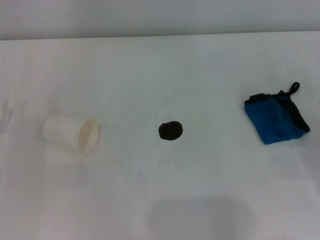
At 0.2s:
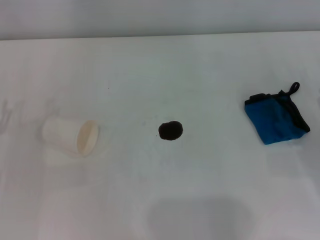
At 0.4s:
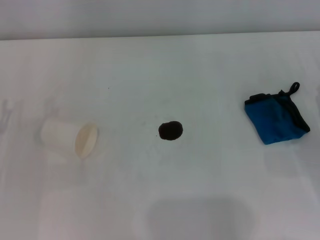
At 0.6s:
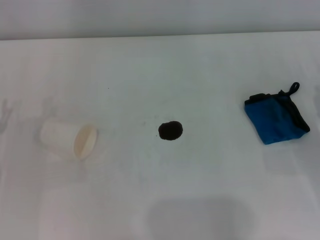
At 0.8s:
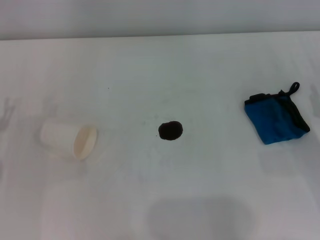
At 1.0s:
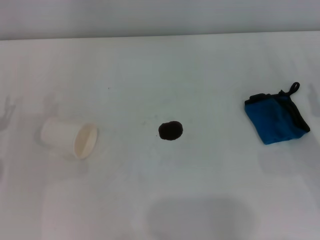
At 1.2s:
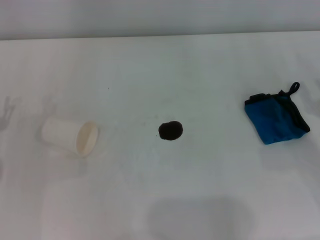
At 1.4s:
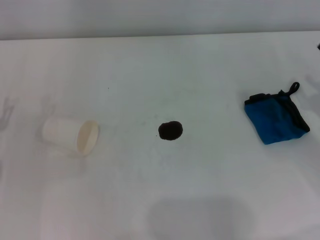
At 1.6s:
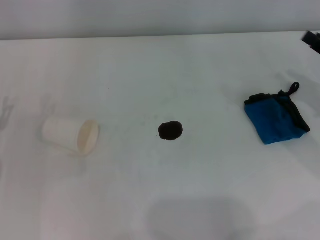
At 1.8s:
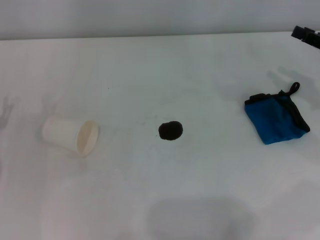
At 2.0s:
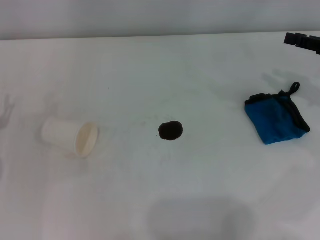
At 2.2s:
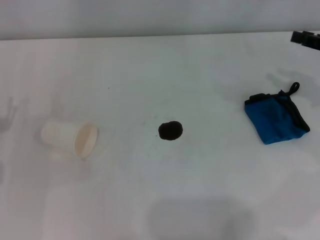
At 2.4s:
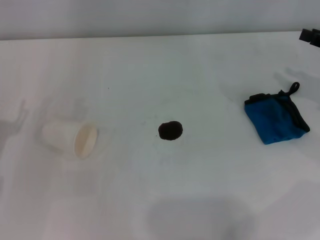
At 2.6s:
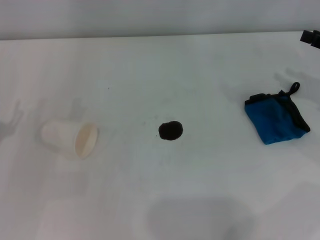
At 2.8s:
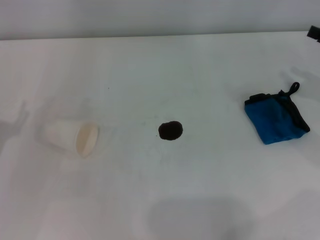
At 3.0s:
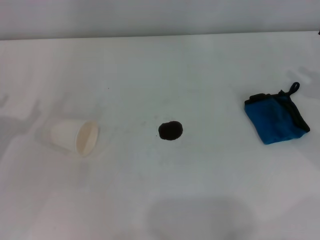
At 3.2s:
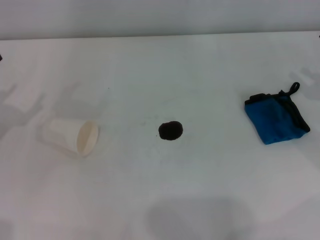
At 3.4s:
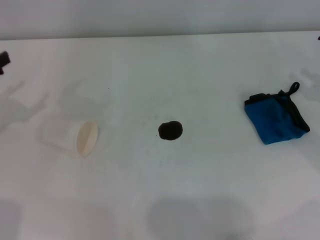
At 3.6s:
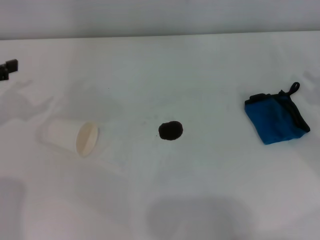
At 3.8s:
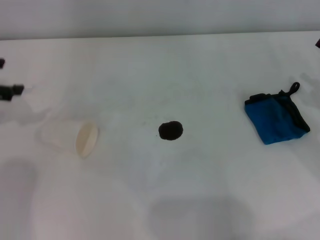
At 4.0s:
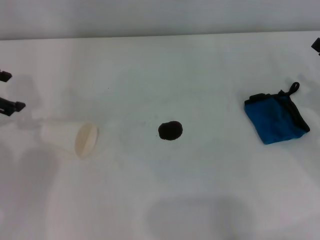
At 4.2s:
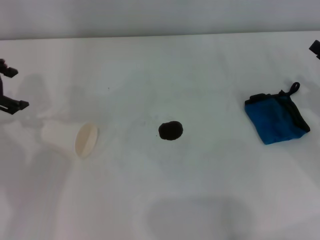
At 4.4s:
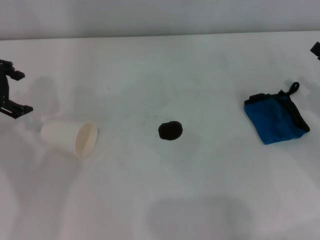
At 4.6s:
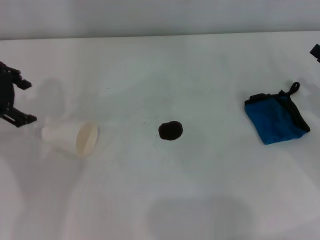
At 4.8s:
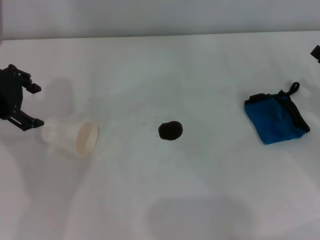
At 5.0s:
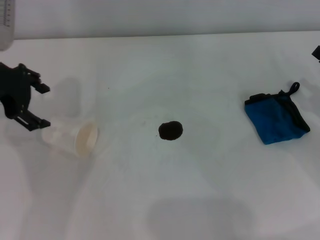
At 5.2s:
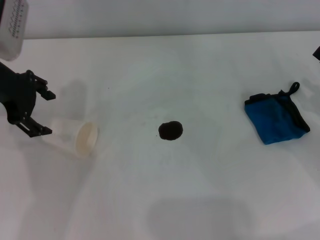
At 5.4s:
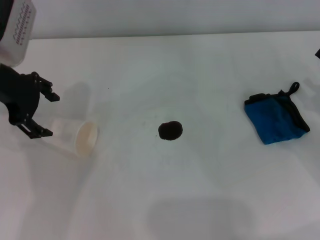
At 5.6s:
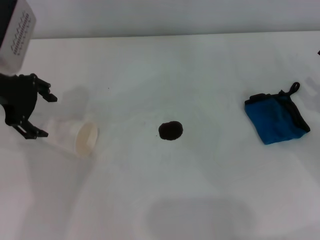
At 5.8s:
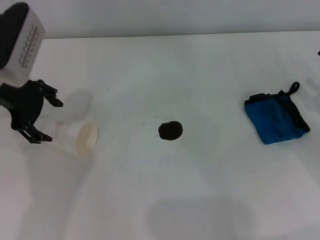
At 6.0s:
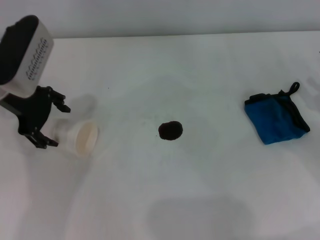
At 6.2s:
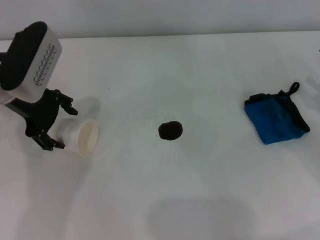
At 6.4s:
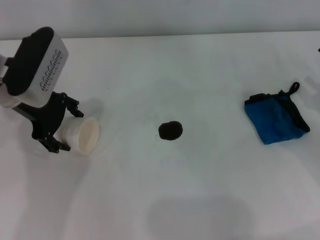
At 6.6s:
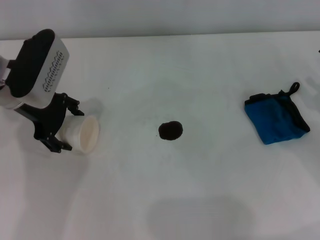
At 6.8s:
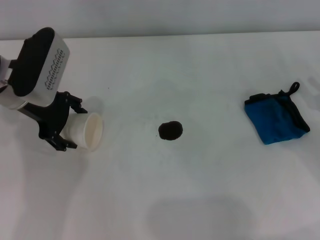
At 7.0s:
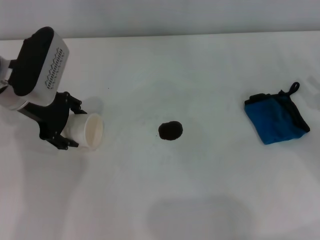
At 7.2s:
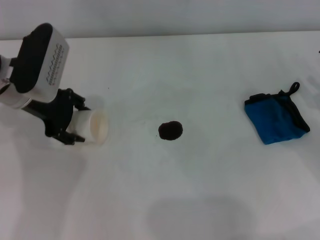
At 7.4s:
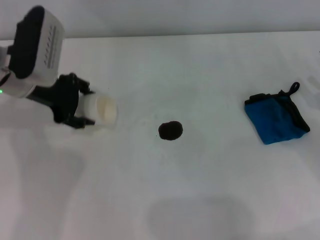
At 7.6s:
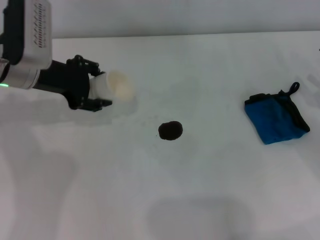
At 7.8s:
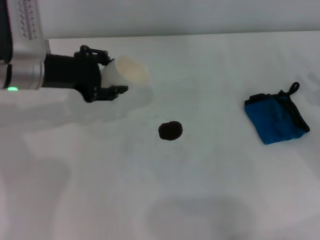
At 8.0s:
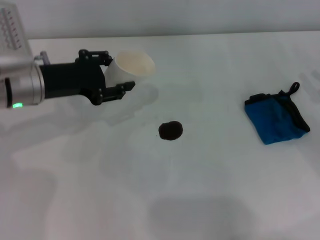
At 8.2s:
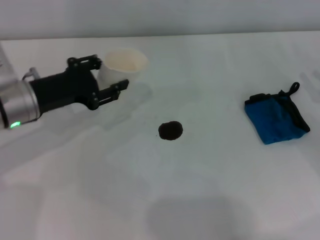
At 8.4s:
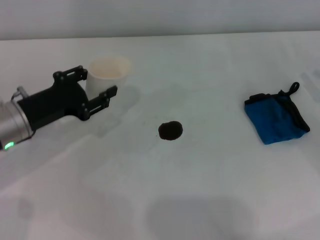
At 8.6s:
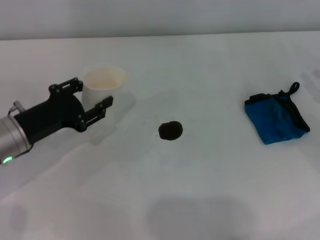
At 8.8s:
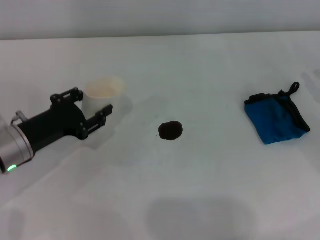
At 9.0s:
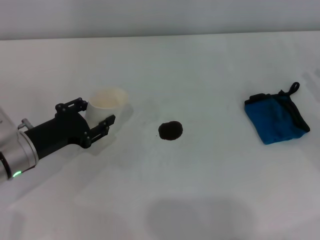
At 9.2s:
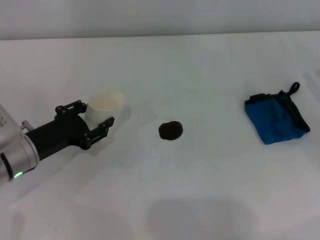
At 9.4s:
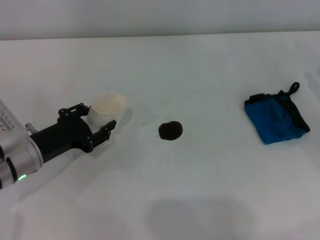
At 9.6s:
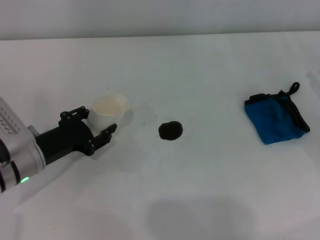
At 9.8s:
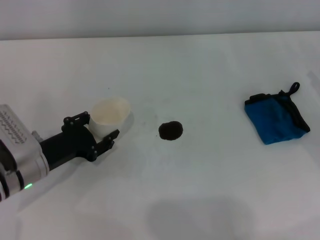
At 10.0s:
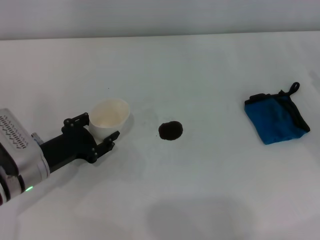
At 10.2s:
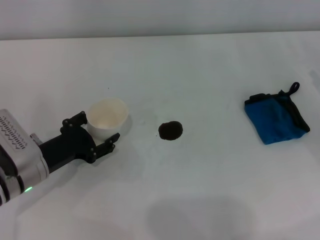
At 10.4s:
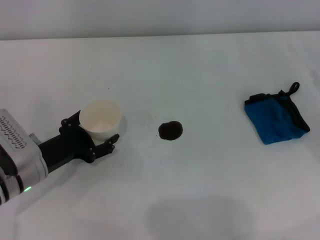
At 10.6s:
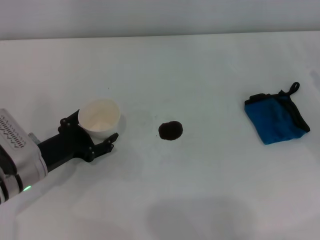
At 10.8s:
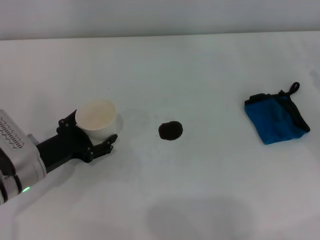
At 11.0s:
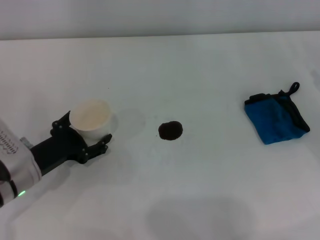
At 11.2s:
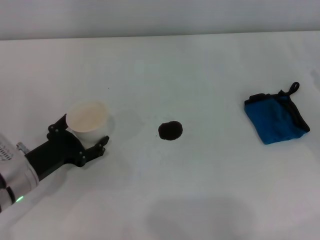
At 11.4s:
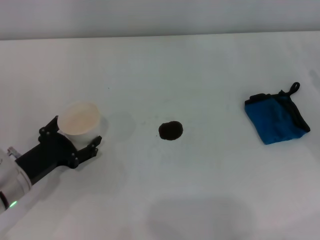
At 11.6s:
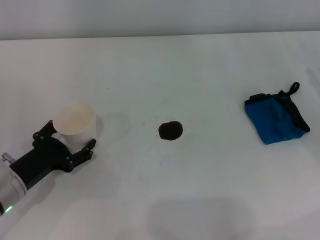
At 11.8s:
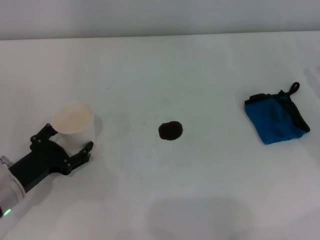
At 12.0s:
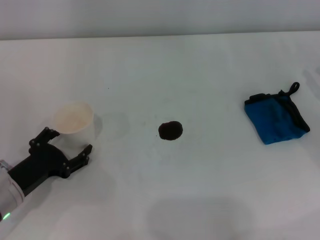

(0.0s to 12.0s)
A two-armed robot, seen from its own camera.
Step, 0.0s - 6.8s: Grasp the paper cup with the left gripper.
Step, 7.2s - 11.8s: Stand the paper cup upright with the left gripper.
3.0s - 4.4s: The left gripper goes approximately 20 cm forward and upward.
4.4s - 6.0s: The left gripper heads to the right, covering about 5 cm.
6.0s - 7.6s: The left gripper closes.
7.6s - 9.0s: The left gripper is displaced downward and backward by roughly 15 cm.
9.0s - 10.4s: The grippers move only a little.
10.4s - 12.0s: The left gripper ends up about 5 cm from where it was, and opens its fingers.

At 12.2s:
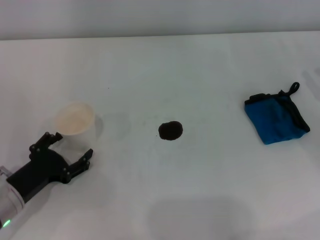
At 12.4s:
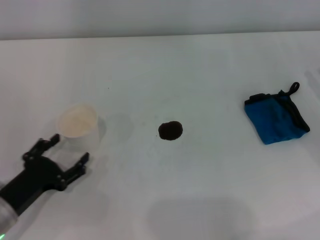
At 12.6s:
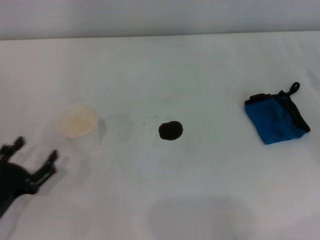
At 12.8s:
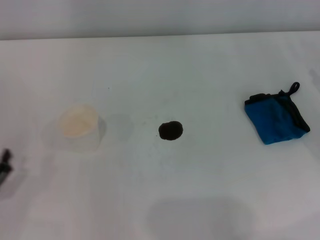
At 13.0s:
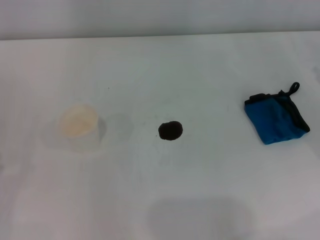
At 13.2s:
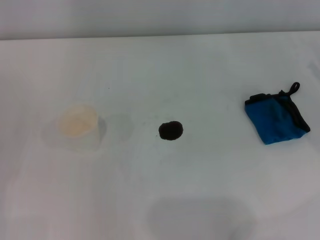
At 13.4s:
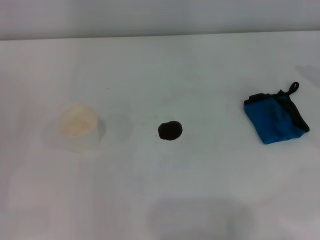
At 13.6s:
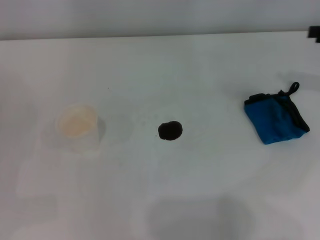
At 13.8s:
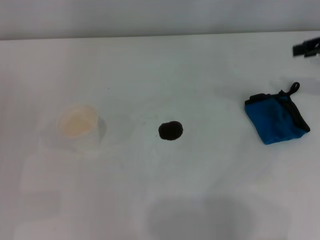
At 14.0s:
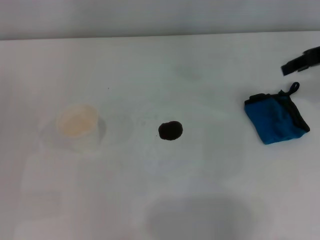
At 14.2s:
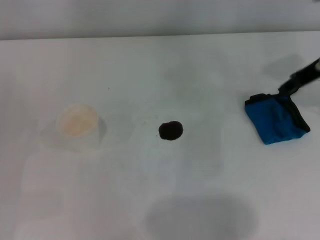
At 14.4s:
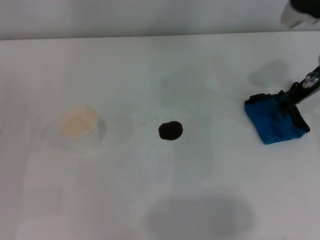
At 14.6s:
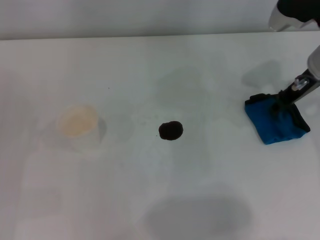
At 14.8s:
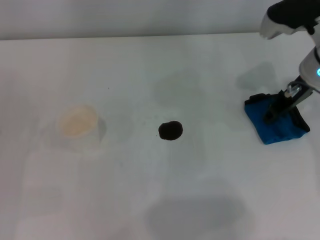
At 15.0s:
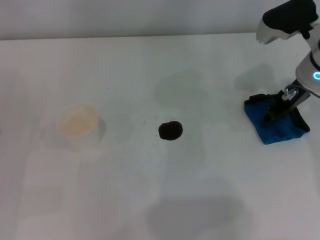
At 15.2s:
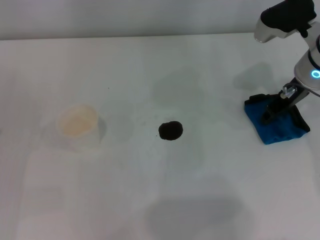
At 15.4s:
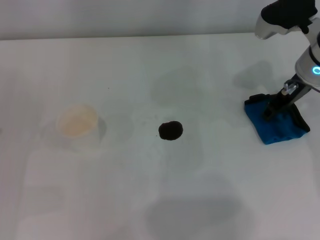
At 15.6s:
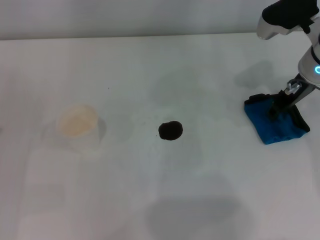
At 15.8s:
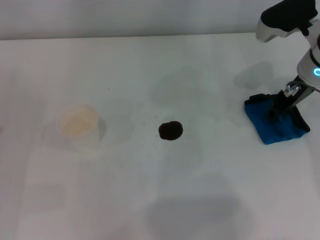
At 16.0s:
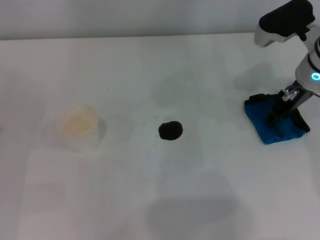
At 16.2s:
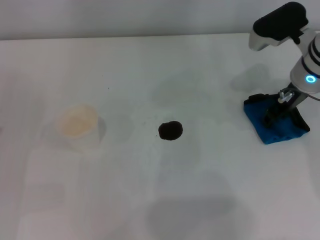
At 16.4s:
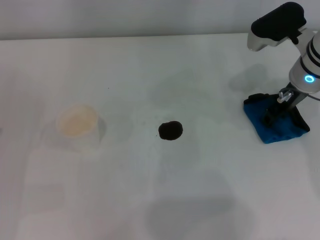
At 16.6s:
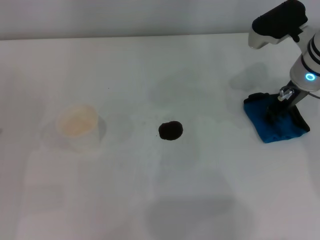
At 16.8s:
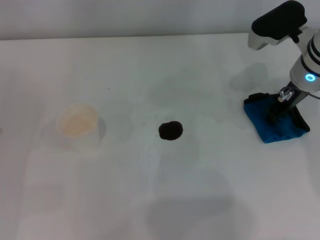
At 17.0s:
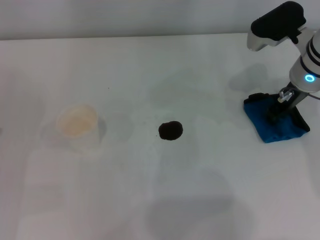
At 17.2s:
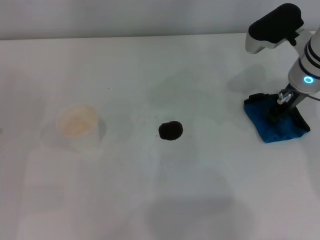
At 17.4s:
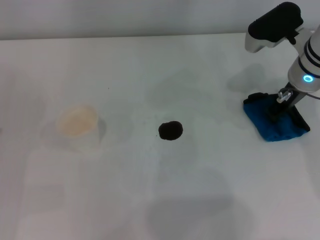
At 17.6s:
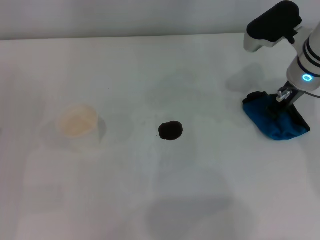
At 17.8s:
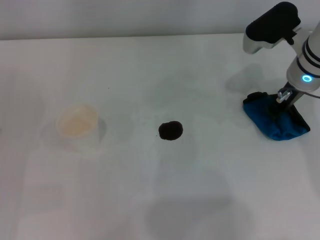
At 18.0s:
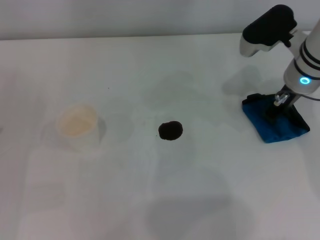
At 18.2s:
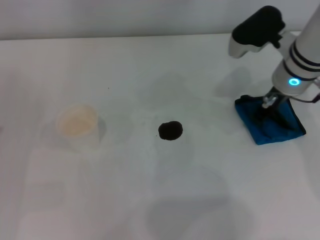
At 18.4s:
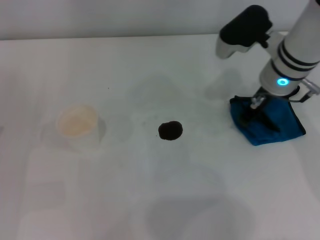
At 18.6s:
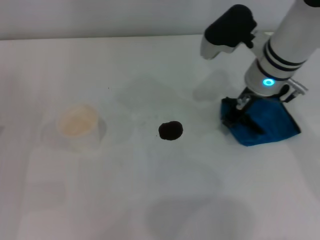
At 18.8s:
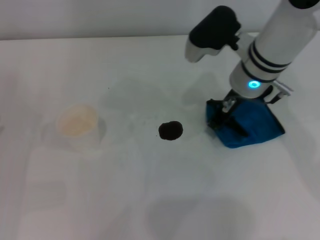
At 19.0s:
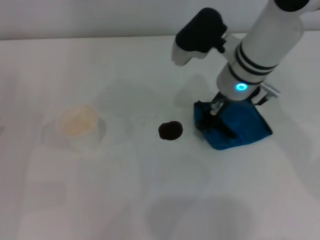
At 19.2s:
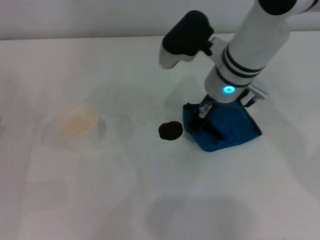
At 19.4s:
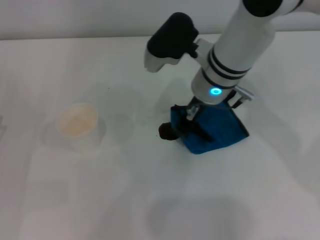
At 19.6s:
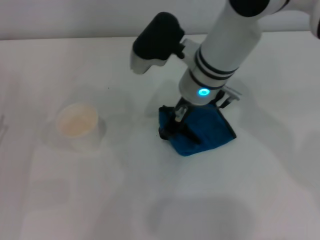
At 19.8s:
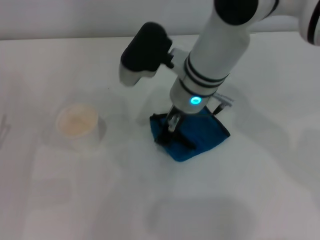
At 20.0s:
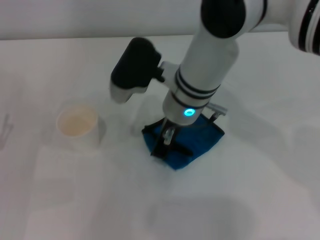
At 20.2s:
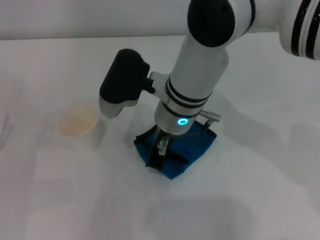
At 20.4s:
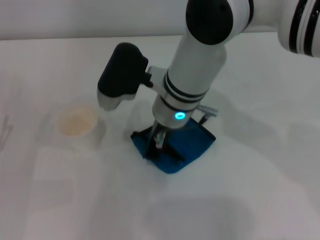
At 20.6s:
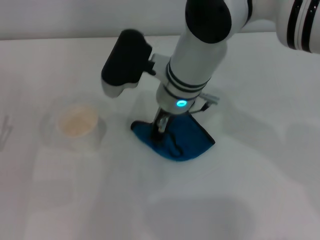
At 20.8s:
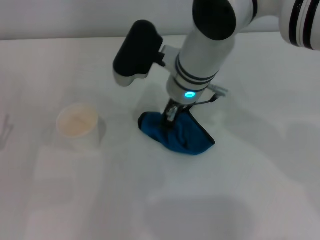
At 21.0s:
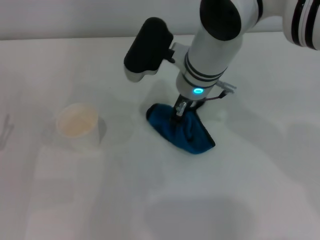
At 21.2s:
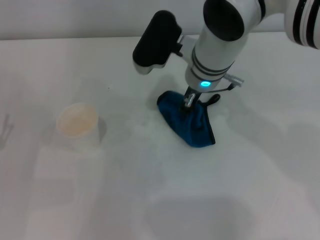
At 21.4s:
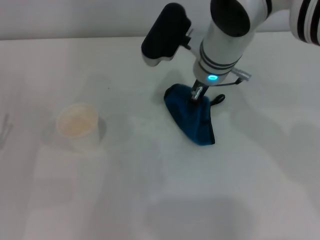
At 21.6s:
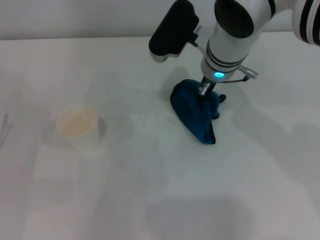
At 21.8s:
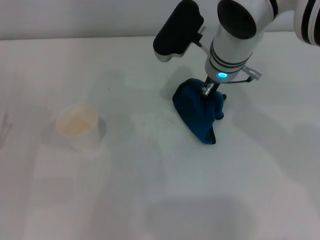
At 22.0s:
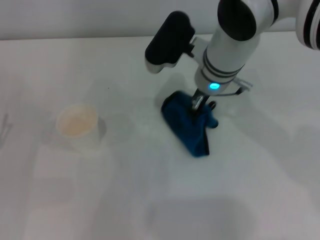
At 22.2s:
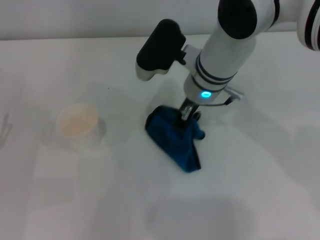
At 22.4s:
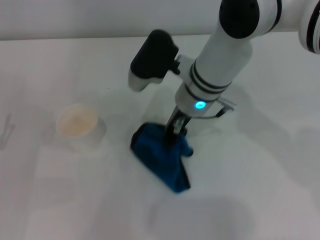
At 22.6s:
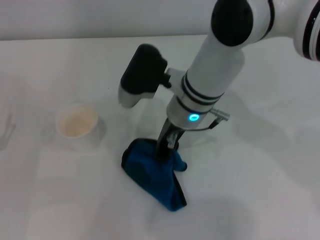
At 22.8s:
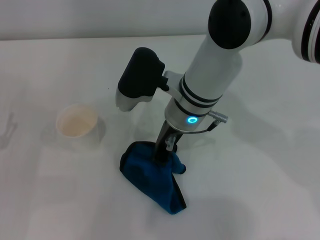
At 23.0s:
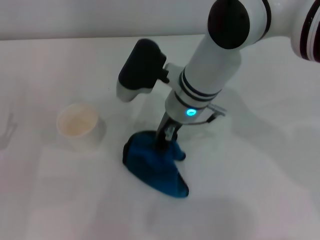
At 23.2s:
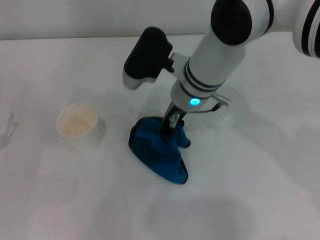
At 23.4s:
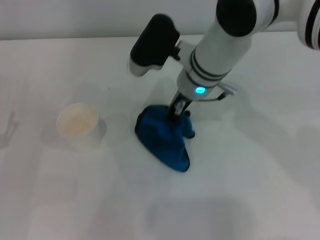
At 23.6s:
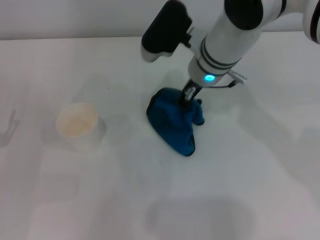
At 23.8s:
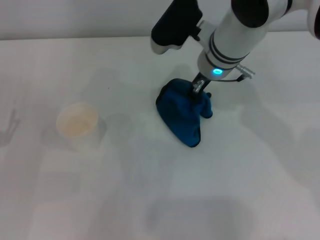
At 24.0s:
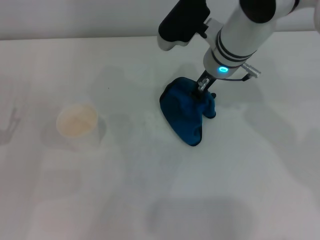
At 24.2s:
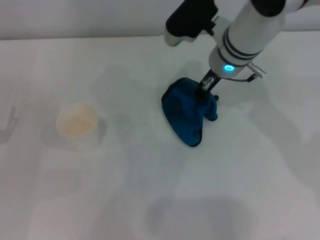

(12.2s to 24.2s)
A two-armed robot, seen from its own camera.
Step, 12.2s - 18.4s: Grasp the rag with the right gripper.
12.2s - 13.8s: The left gripper shifts roughly 10 cm to the left.
13.8s - 15.2s: The right gripper shifts approximately 15 cm to the left and downward.
15.2s - 16.6s: There are only small adjustments of the grippers.
16.6s - 18.2s: The right gripper closes its fingers.
18.2s - 19.8s: The right gripper shifts roughly 15 cm to the left.
19.8s - 21.2s: The grippers make only small movements.
21.2s - 22.6s: The right gripper ends up approximately 5 cm from where it was.
22.6s - 24.2s: The right gripper shifts approximately 10 cm to the right and forward.
